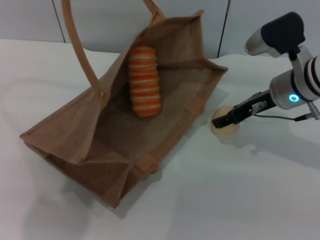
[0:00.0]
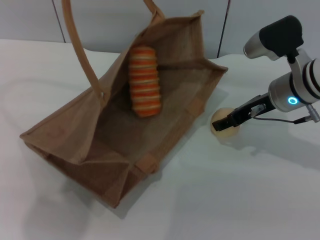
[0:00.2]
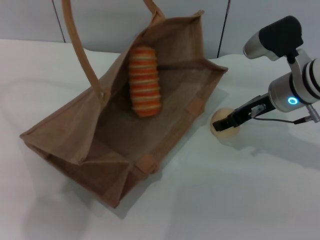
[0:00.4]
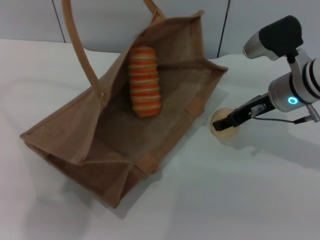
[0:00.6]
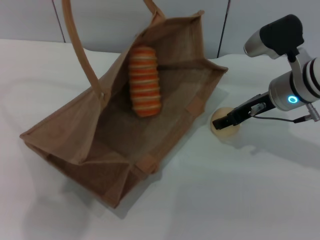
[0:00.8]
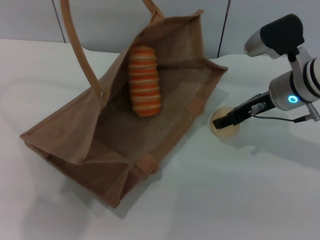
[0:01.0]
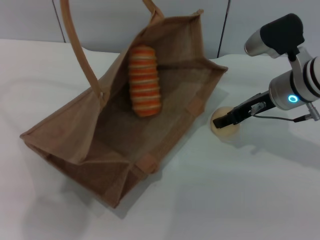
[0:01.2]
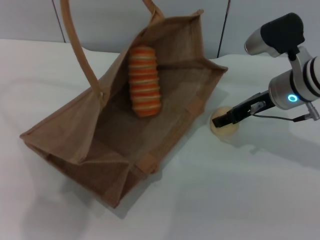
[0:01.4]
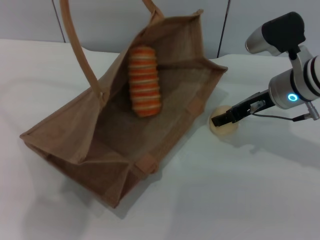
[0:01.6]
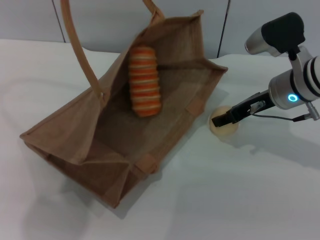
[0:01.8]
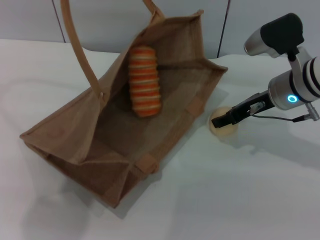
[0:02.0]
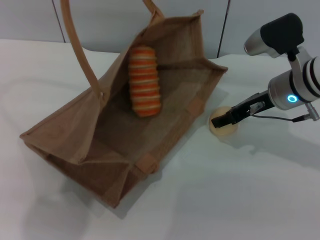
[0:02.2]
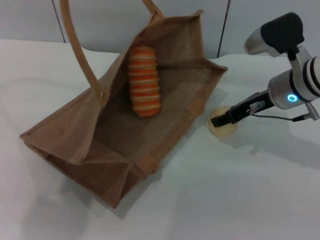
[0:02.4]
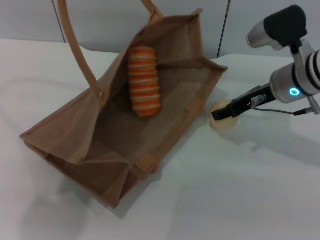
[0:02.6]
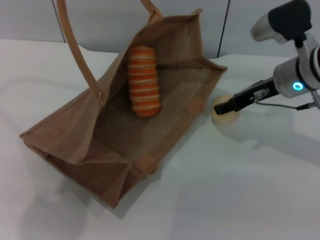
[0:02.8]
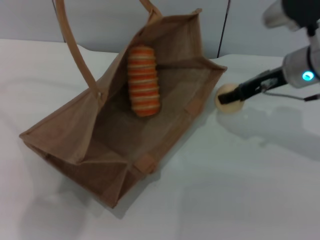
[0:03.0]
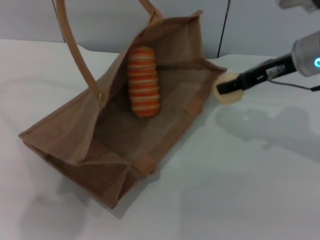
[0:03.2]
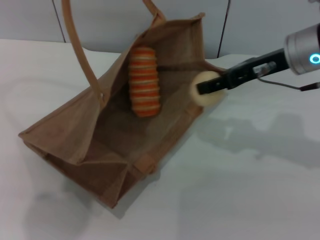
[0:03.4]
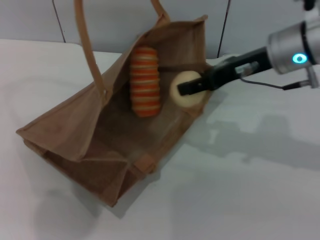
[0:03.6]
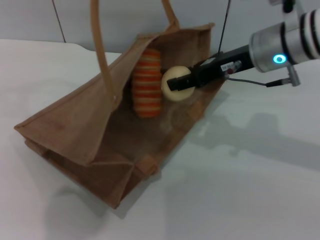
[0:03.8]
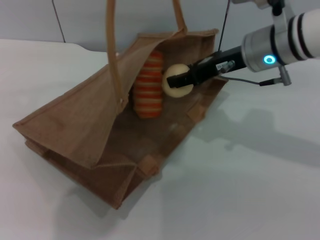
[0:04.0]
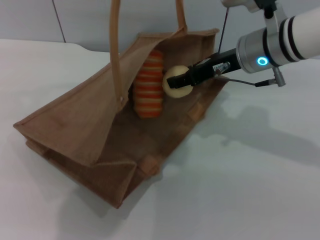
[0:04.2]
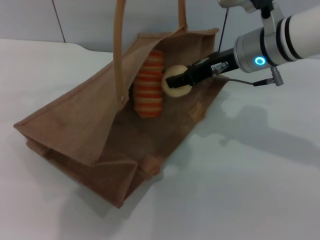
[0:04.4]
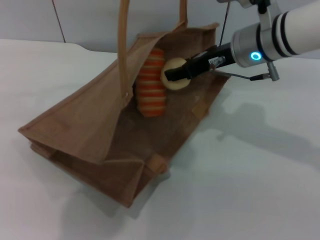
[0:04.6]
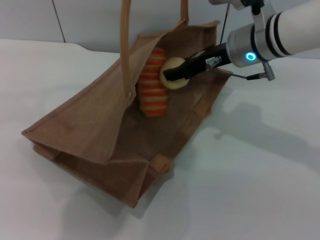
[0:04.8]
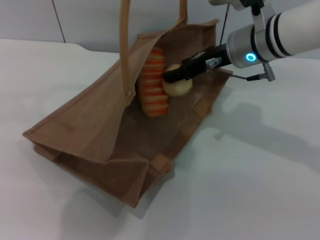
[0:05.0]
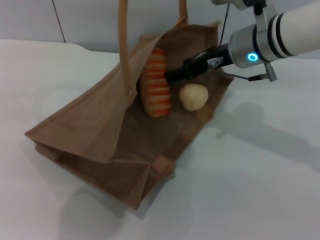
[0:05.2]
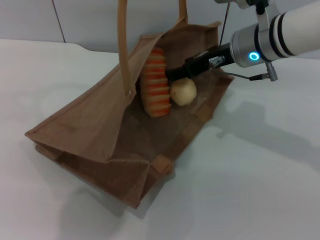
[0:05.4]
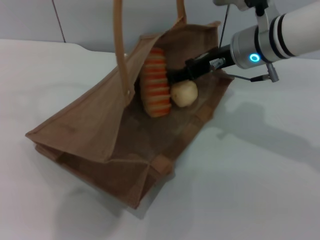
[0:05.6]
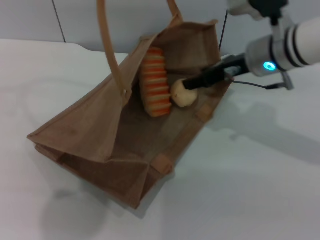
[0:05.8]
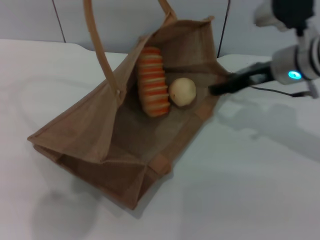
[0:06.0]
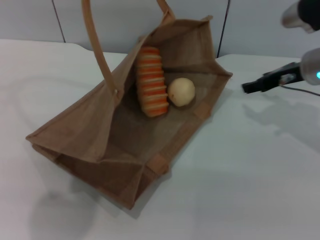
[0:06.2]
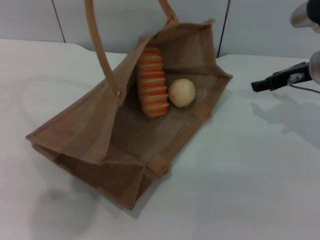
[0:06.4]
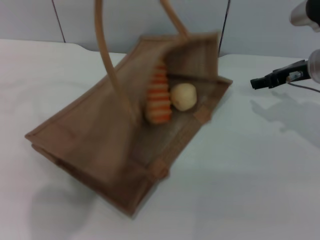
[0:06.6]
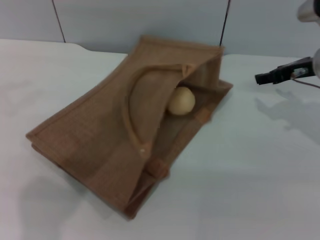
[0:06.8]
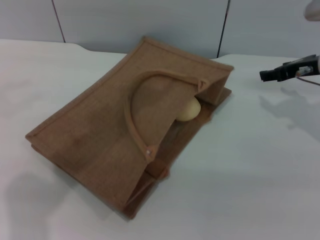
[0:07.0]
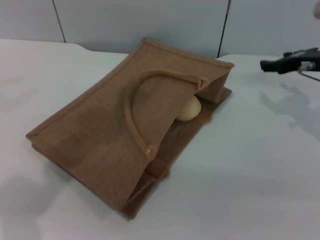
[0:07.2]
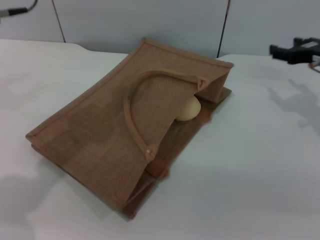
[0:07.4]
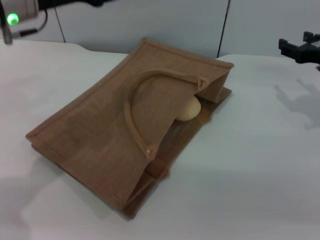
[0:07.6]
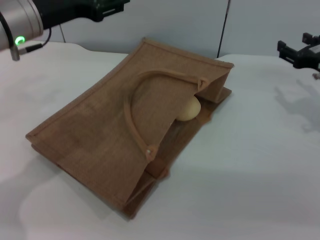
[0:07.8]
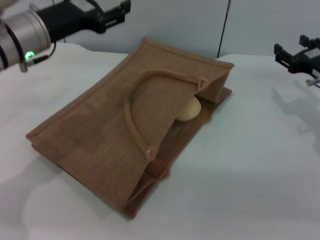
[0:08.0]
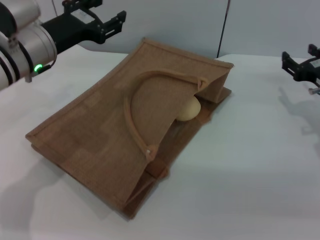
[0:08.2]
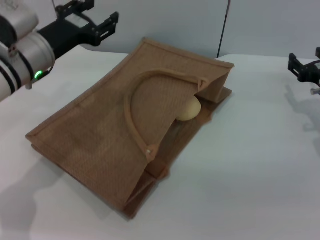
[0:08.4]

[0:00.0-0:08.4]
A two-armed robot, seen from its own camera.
Task of the whole recording: pick up the bread and egg yolk pastry from the table and place it in the brown handbag.
Step, 0:00.0 to 0:02.8: Pick up the egg yolk pastry with the right gripper.
Step, 0:03.0 to 0:05.8: Place the egg yolk pastry into the woven bag with the right gripper.
Step, 0:06.0 to 0:07.0: Lower the woven bag with the left gripper to close it.
0:00.0 to 0:01.4: Both grippers stay about where they are.
0:01.4 to 0:02.8: The grippers stay close to where they were, moving slightly.
0:02.8 to 0:04.2: The right gripper is displaced to the left by roughly 5 cm; the left gripper goes some 5 cm to the right.
0:04.2 to 0:05.6: The grippers make only small movements.
0:05.6 to 0:07.0: The left gripper shifts some 5 cm to the left, and opens up. The right gripper travels to the right by roughly 15 cm.
0:07.0 to 0:08.4: The left gripper shifts about 20 cm downward. The right gripper is displaced downward by approximately 10 cm.
